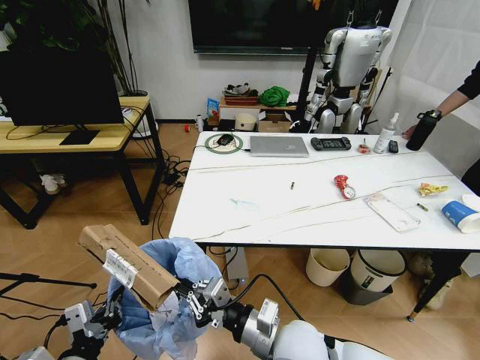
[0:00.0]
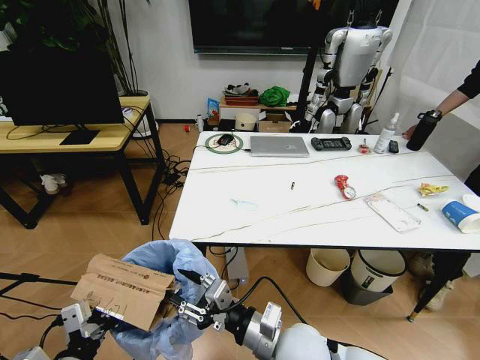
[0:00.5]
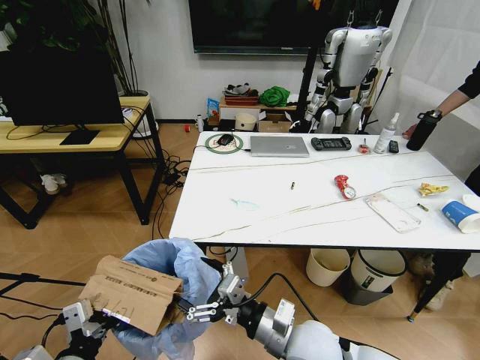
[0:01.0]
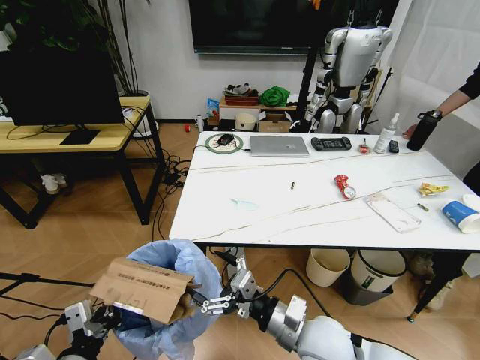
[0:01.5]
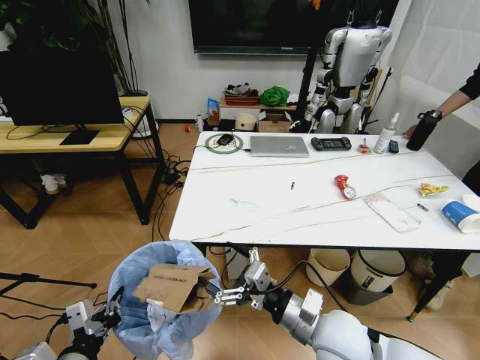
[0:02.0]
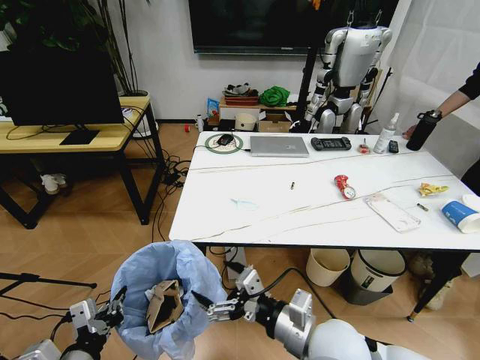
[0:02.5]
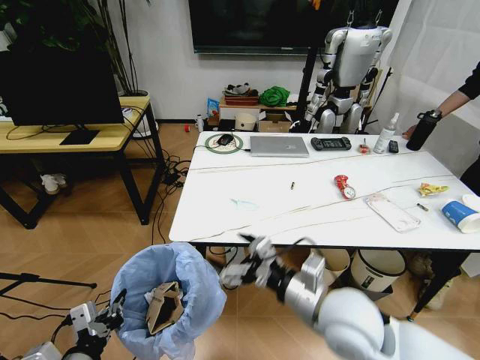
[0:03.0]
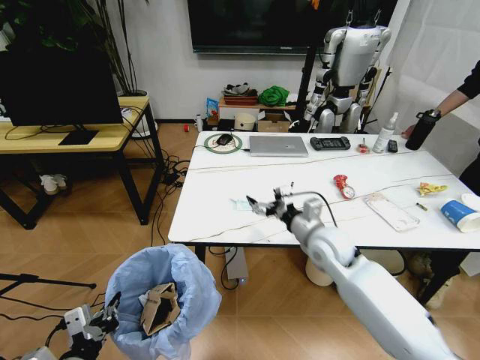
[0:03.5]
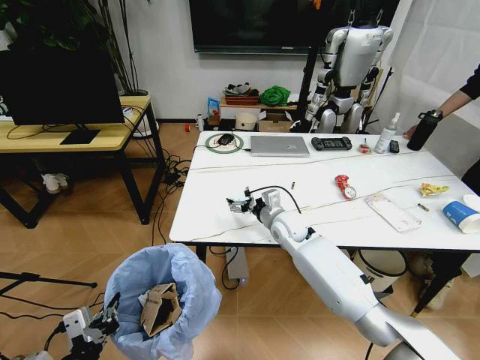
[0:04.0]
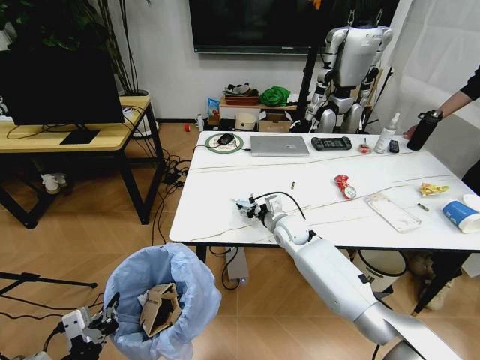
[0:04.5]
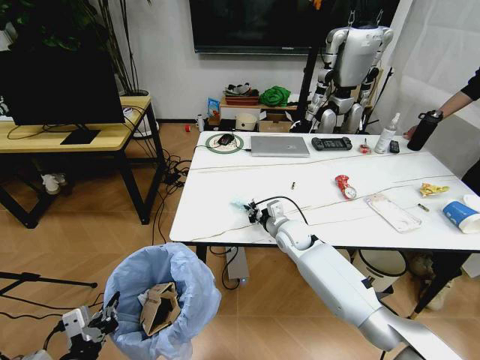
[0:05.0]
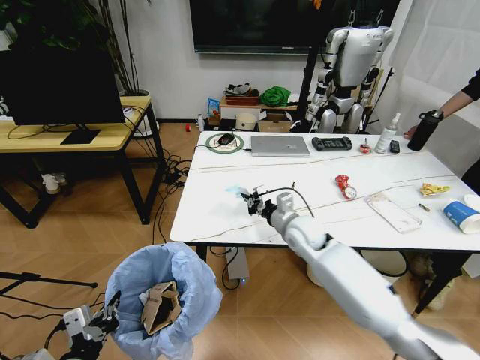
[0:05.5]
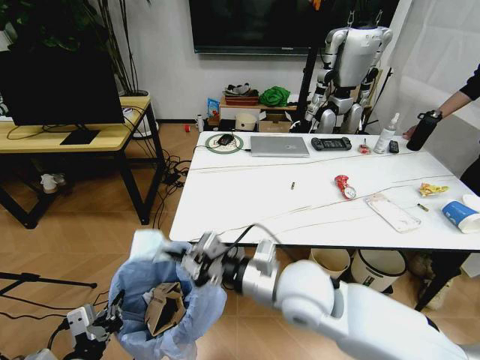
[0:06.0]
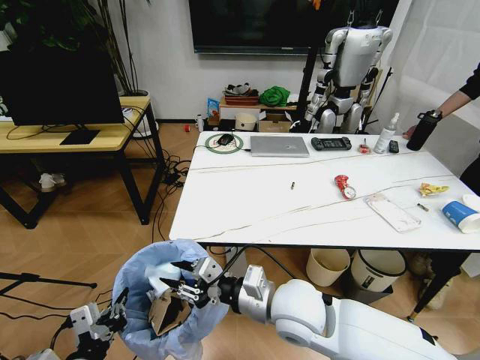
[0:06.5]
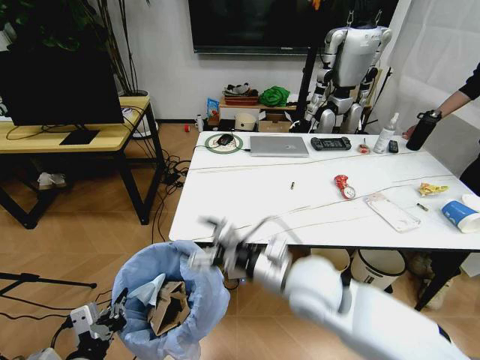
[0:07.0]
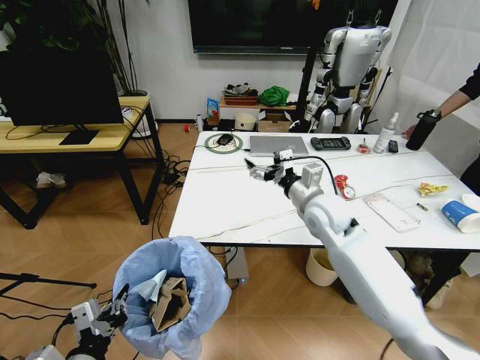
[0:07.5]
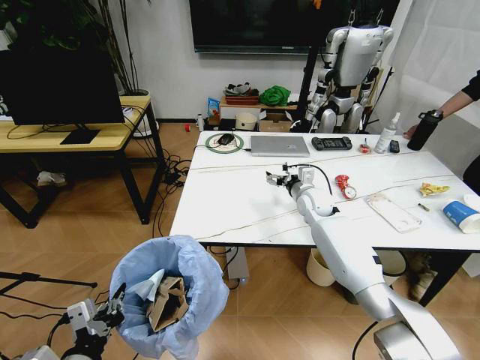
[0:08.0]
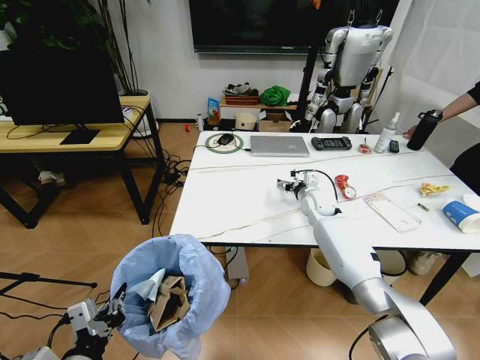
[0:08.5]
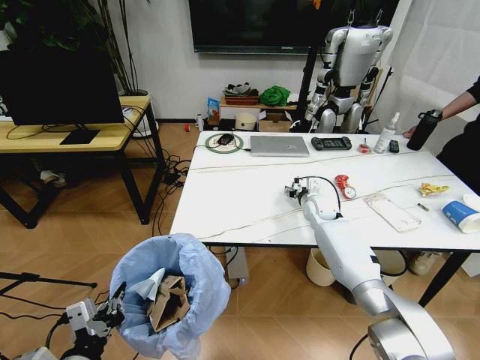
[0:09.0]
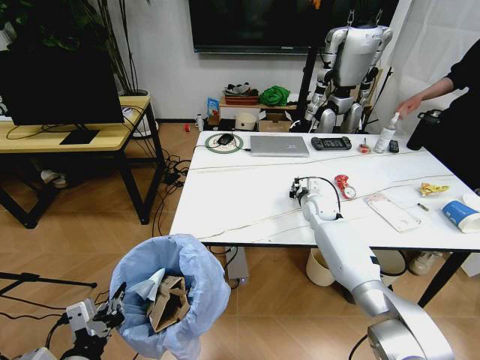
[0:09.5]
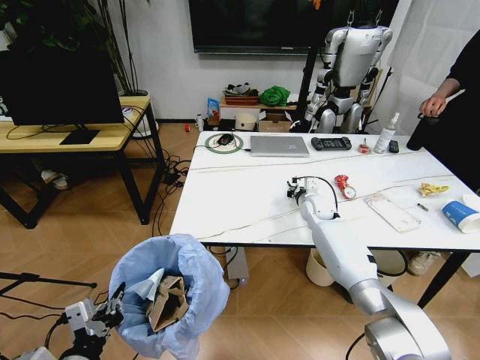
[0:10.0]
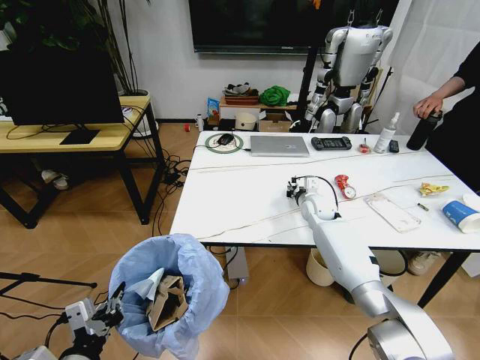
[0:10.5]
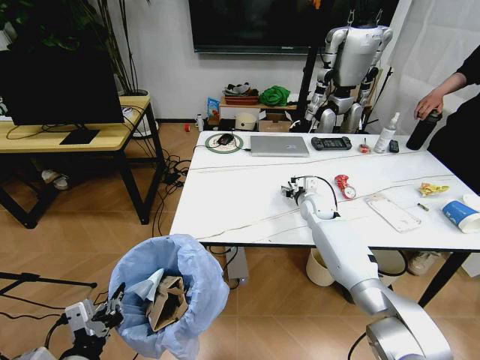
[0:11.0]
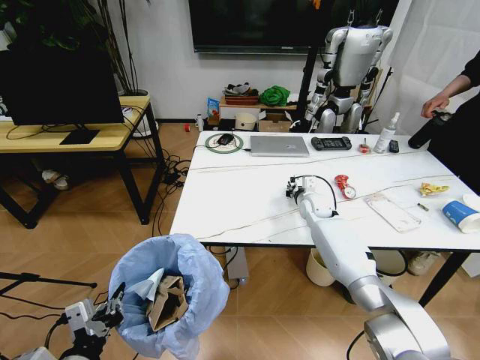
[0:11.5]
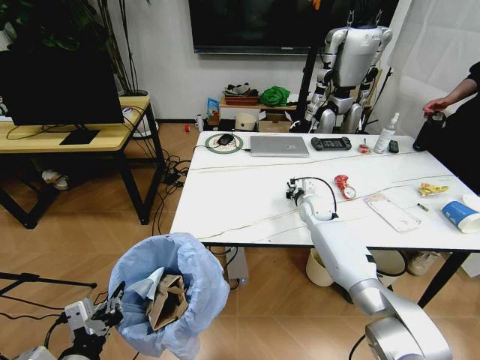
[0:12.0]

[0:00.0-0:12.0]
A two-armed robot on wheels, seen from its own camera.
Task of the whole recording: Pick up the trash bin and place the trash from the table into it.
0.0 to 2.0 s: The right gripper travels to the right by some 5 cm, and opens up.
2.0 to 4.0 s: The right gripper travels forward by about 30 cm.
4.0 to 6.0 s: The right gripper heads backward and upward, covering roughly 25 cm, and closes.
6.0 to 8.0 s: The right gripper goes approximately 30 cm forward and to the right, and opens up.
8.0 to 10.0 s: The right gripper ends up some 5 cm from where it was, and closes.
10.0 to 12.0 s: The right gripper opens, then closes again.

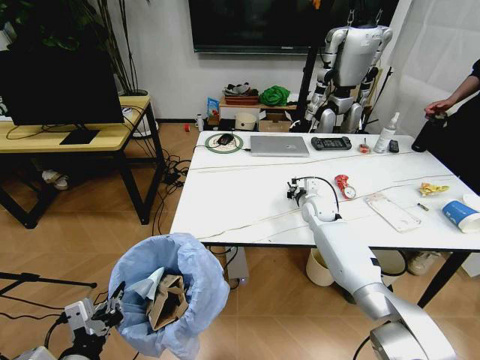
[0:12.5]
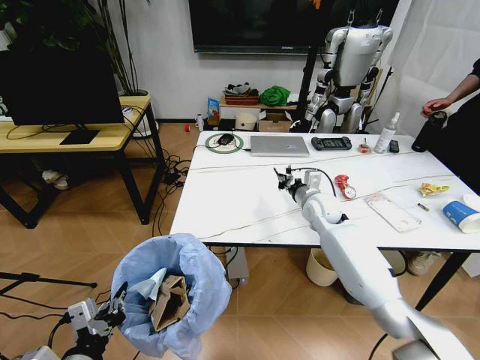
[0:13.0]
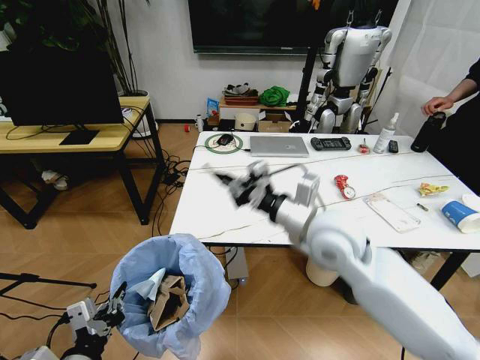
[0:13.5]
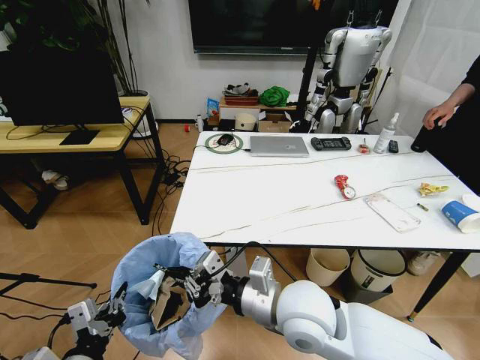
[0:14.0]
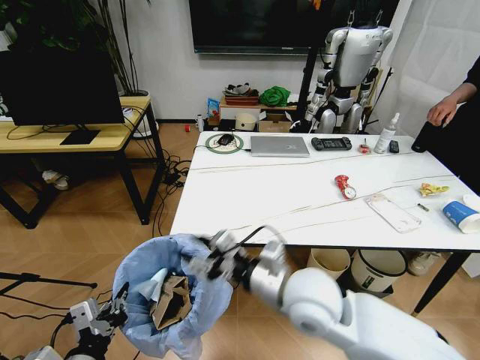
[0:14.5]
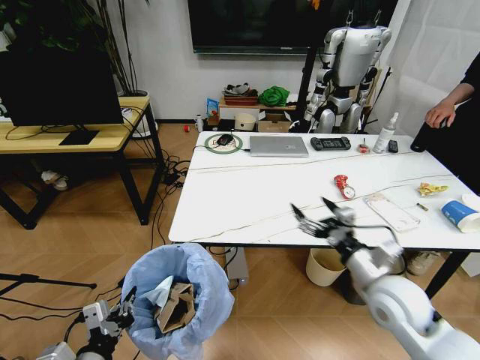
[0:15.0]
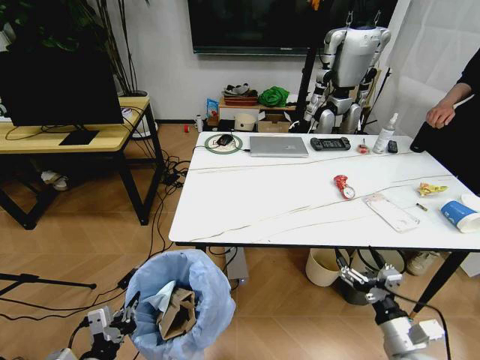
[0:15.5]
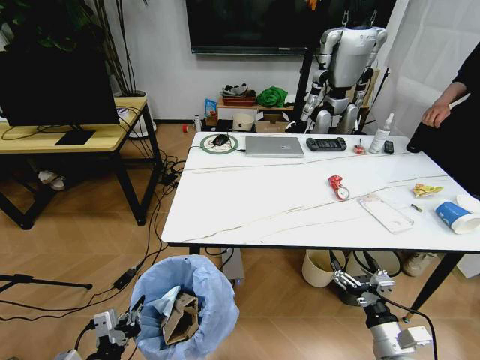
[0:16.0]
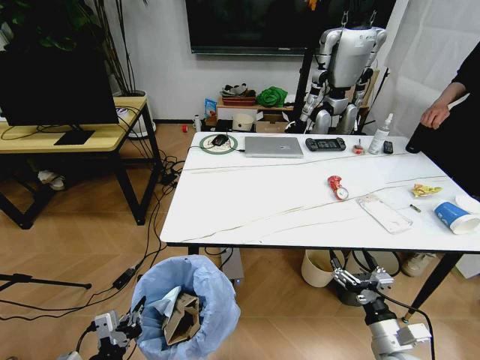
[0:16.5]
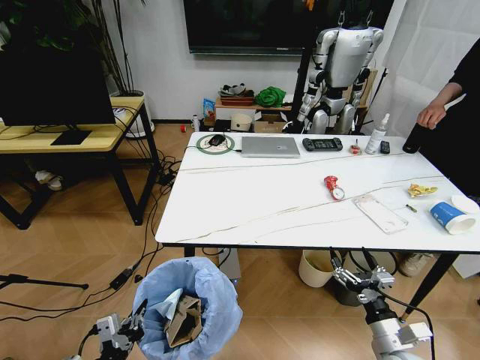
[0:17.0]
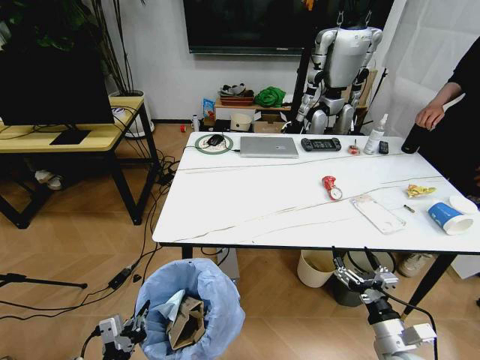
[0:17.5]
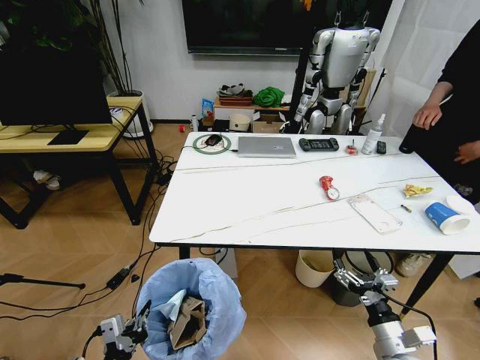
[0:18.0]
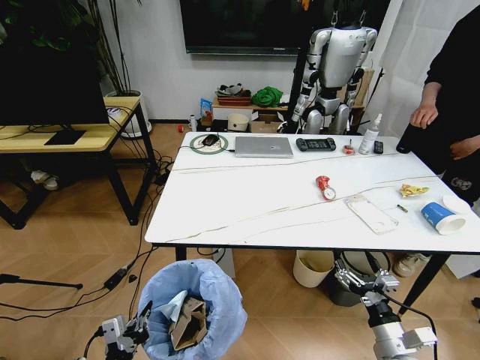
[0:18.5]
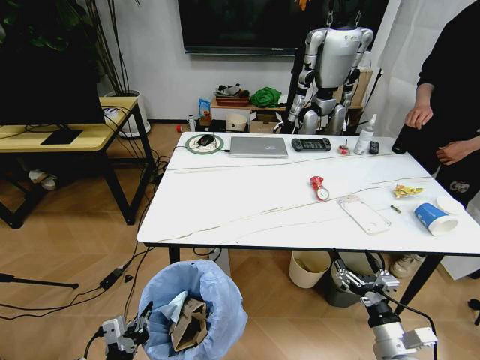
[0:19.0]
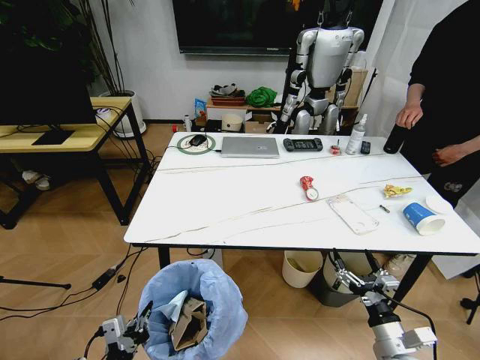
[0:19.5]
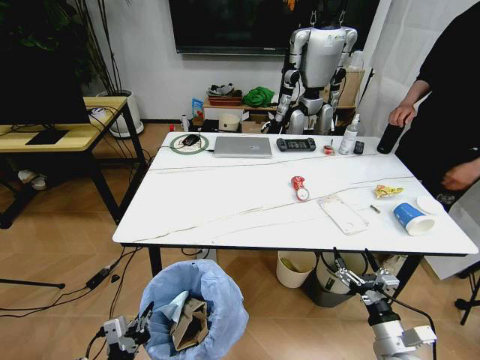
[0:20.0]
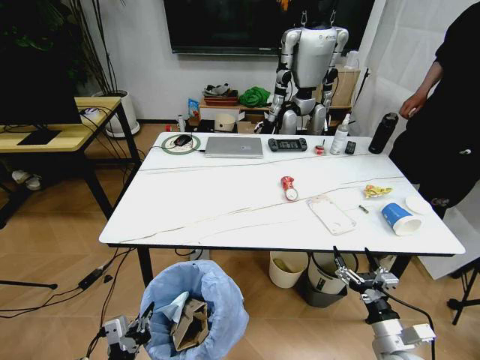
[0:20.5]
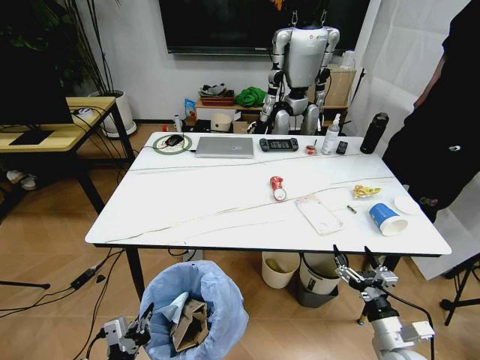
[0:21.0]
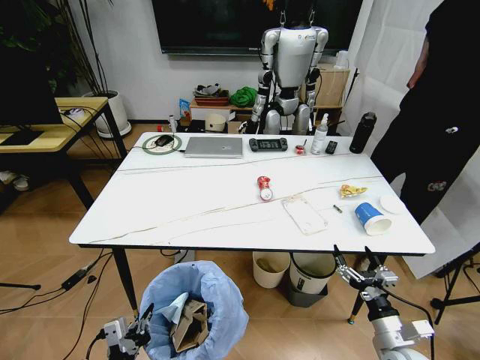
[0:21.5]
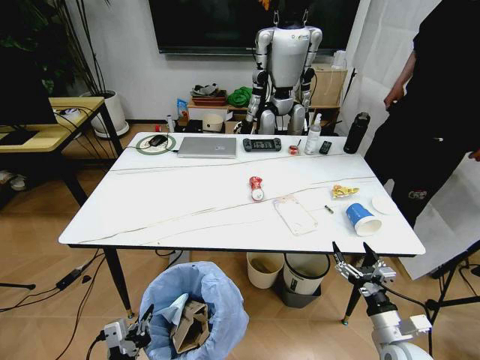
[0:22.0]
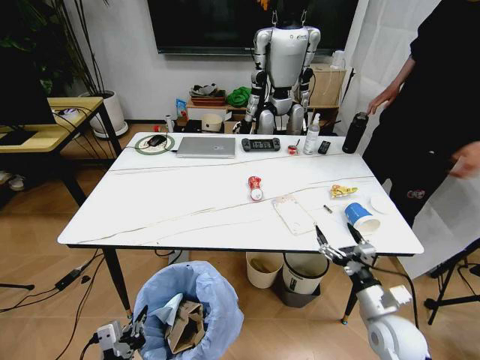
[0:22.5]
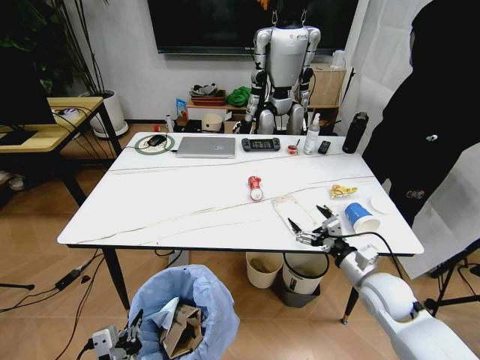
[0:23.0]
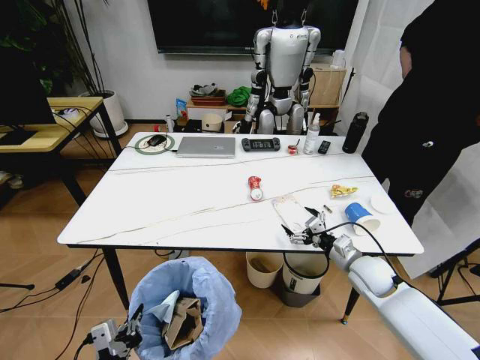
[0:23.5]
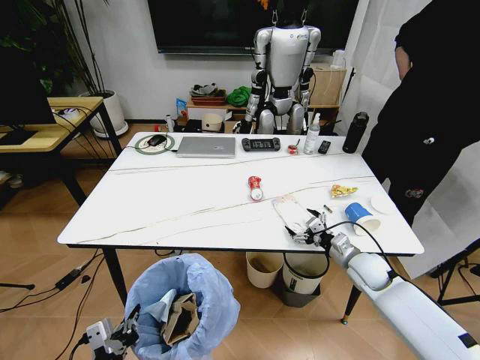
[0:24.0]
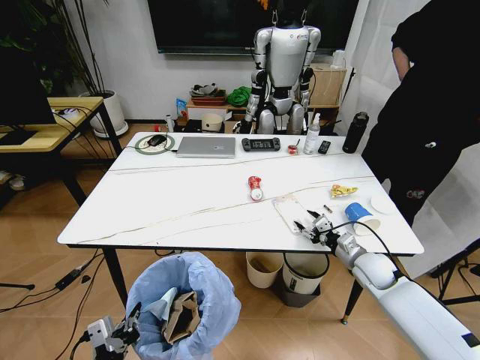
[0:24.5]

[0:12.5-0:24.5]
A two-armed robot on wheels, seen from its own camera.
Task of the whole recording: Pick up the trash bin and place the trash from the table into it.
12.5 to 14.5 s: The right gripper heads backward, upward and to the left, covering some 35 cm, and opens up.
14.5 to 16.5 s: The left gripper goes approximately 5 cm downward. The right gripper heads to the right, downward and backward, covering roughly 30 cm, and opens.
20.5 to 22.5 s: The right gripper heads forward, covering about 5 cm.
22.5 to 24.5 s: The right gripper is displaced forward by about 15 cm, and closes.

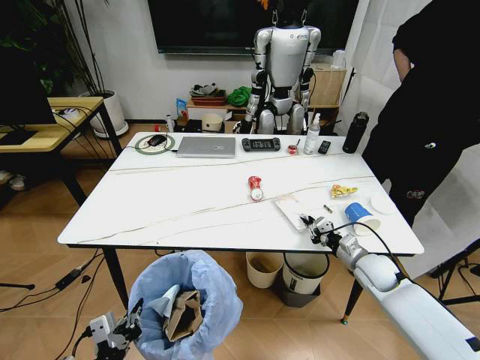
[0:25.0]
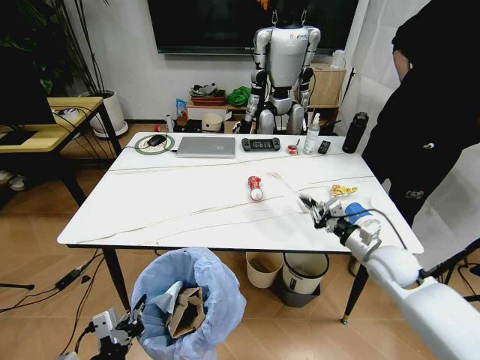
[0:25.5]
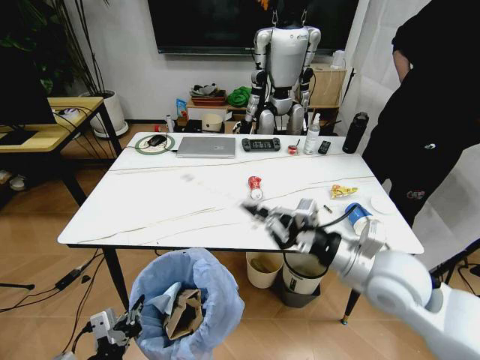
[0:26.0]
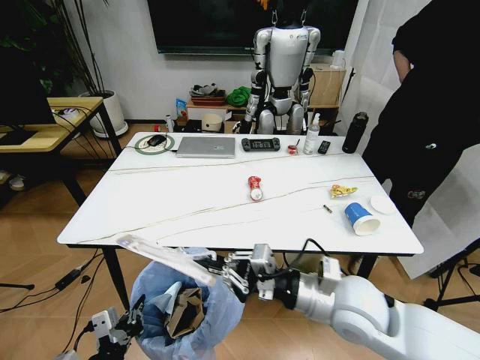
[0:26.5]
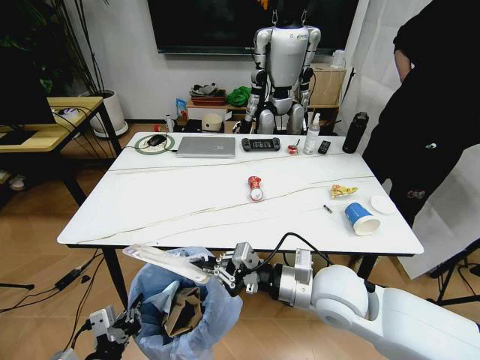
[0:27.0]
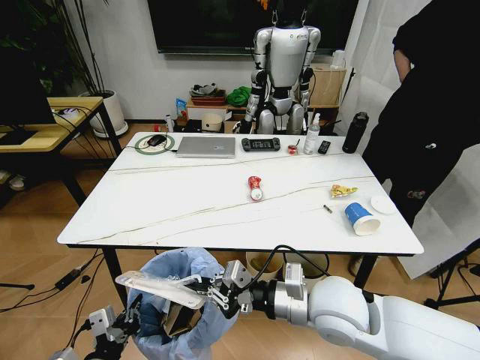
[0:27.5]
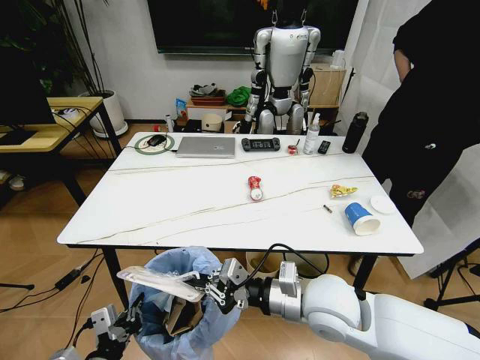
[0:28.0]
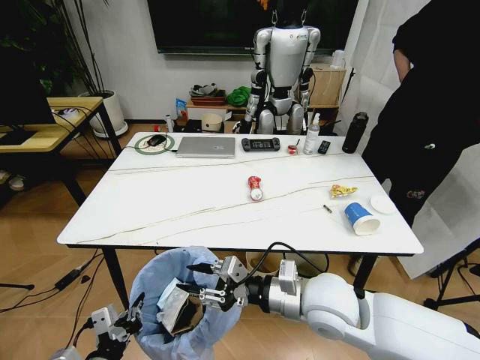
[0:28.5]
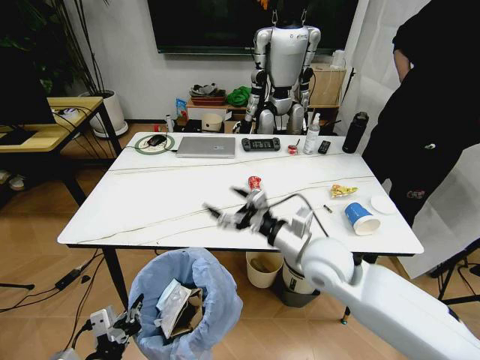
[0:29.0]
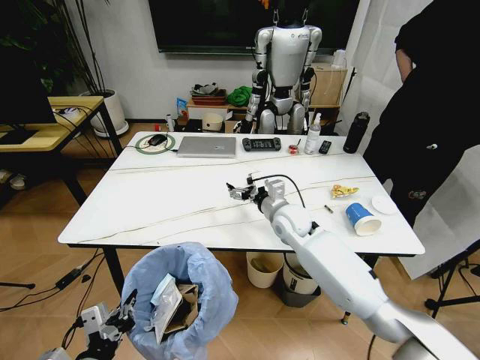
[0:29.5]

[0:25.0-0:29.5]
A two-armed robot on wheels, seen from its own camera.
Task of the whole recording: Pick up the trash bin and place the trash from the table into it.
25.0 to 27.0 s: The right gripper shifts roughly 25 cm to the left, upward and backward.
27.0 to 29.5 s: The right gripper is displaced forward by some 20 cm, and opens up.
